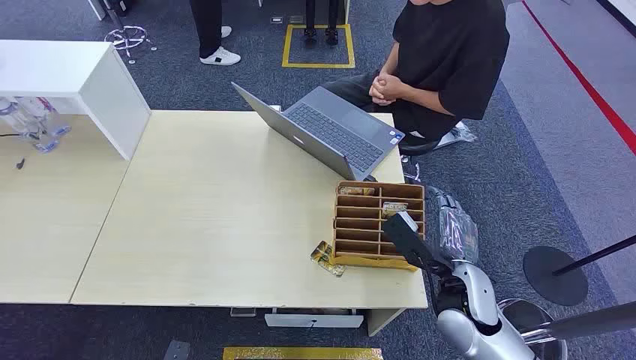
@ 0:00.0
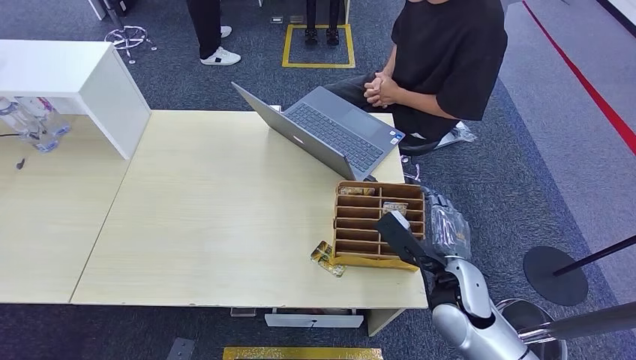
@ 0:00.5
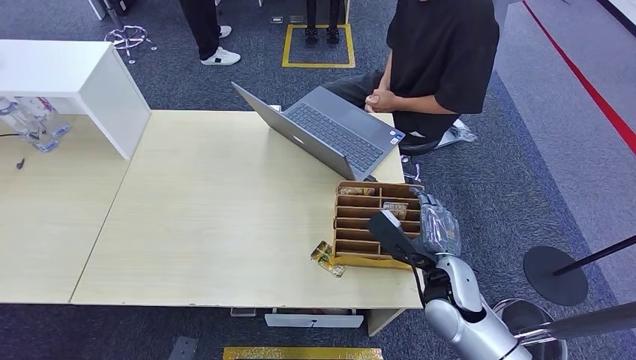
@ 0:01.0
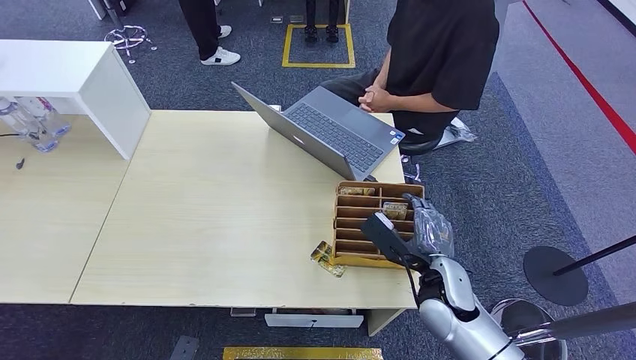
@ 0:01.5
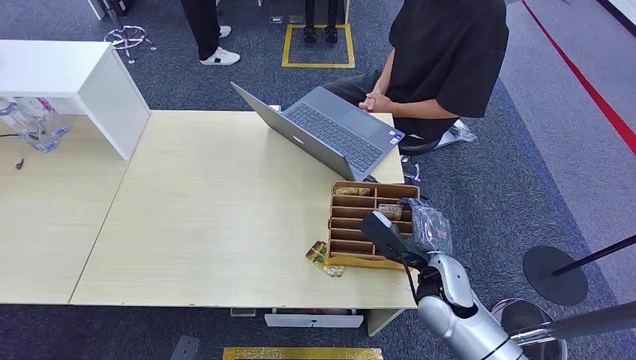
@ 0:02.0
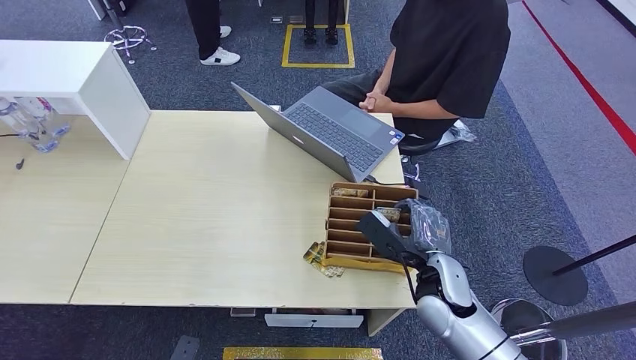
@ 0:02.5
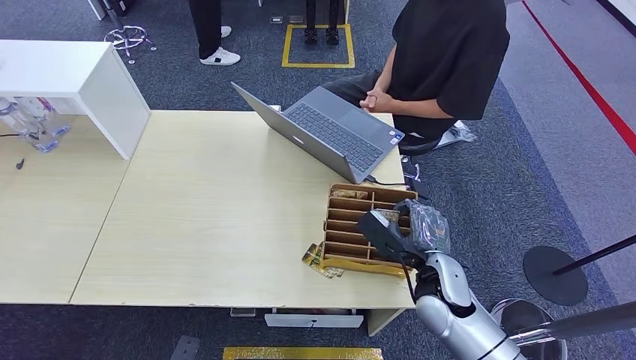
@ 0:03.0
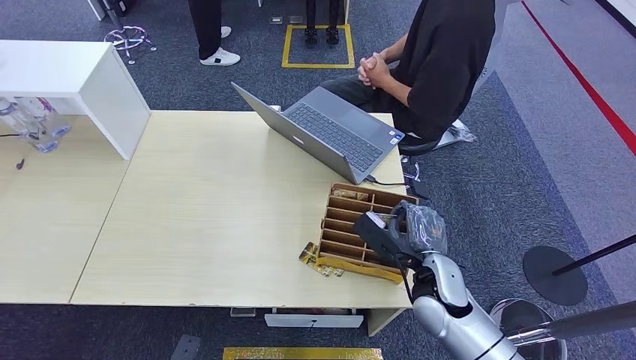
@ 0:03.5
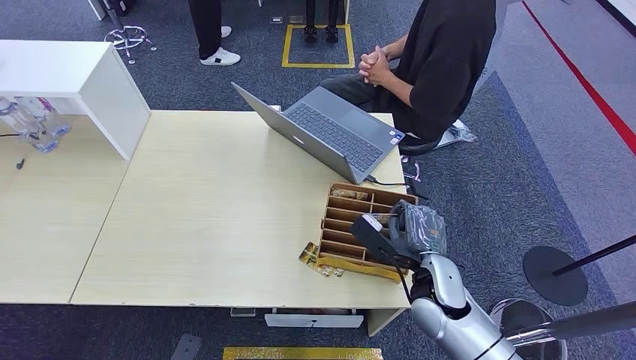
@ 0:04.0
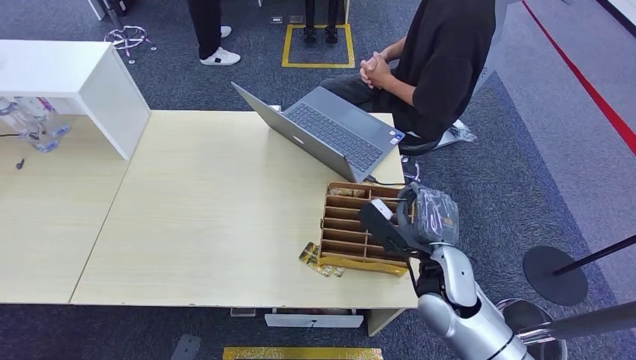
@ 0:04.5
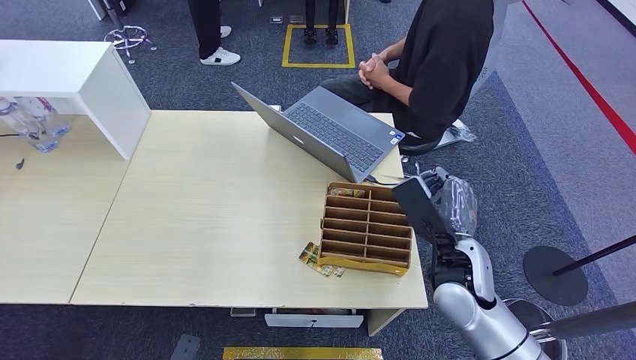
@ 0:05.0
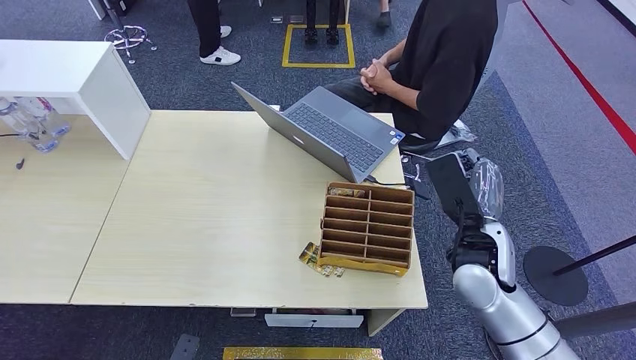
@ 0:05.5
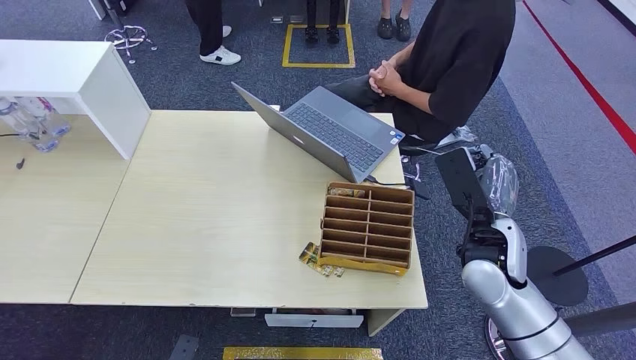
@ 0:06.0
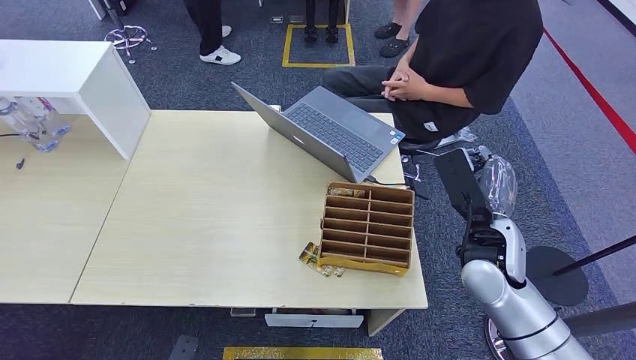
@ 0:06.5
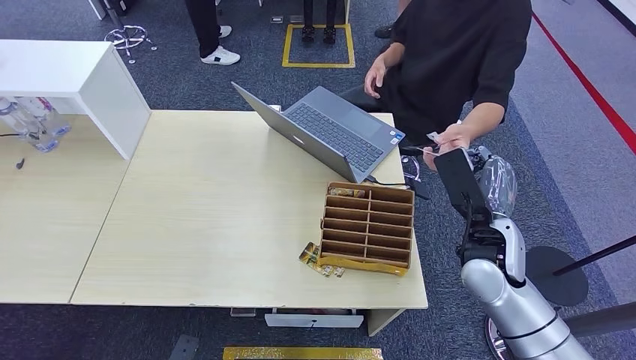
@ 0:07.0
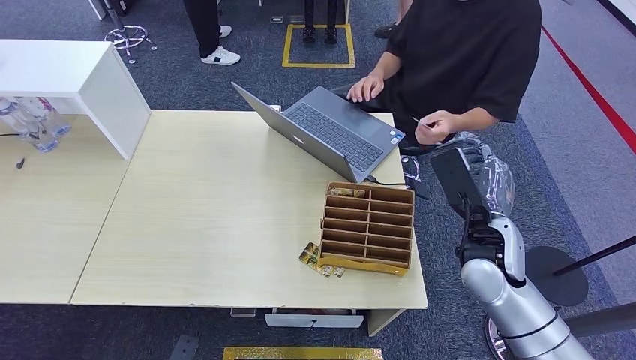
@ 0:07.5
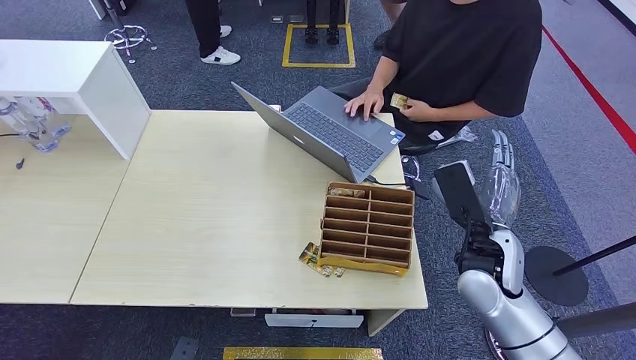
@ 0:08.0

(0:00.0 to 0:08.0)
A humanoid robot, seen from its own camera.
Step, 0:00.0 - 0:05.0: Pick up the key card from the card box.
Step, 0:05.5 - 0:08.0: Hand the key card to the target.
0:02.0 - 0:04.0: The hands make only small movements.
0:04.0 - 0:06.0: The right hand shifts roughly 10 cm upward and to the right.
0:06.0 - 0:08.0: The hands stay close to where they were, moving slightly.
